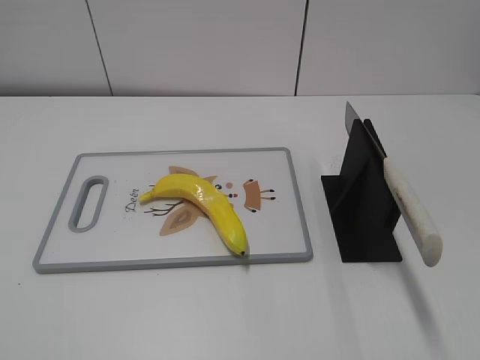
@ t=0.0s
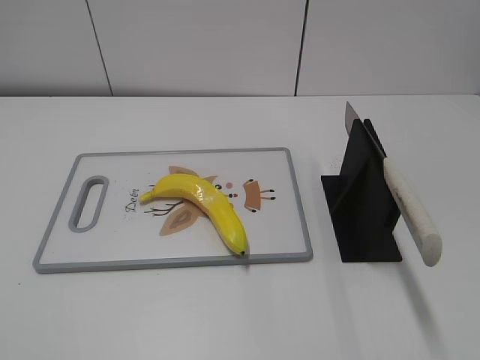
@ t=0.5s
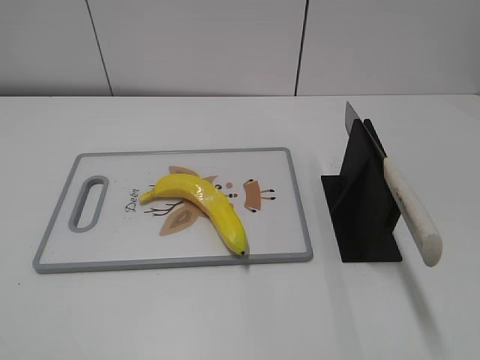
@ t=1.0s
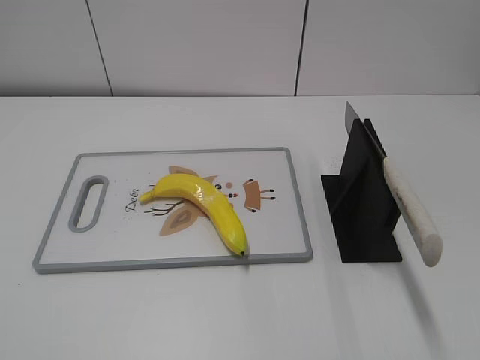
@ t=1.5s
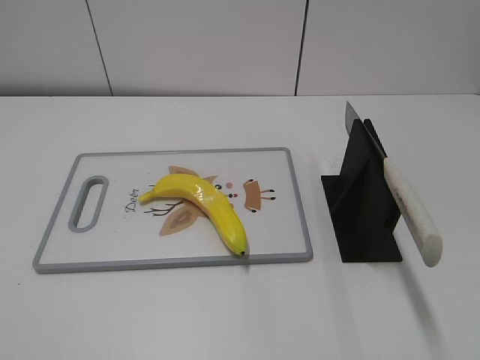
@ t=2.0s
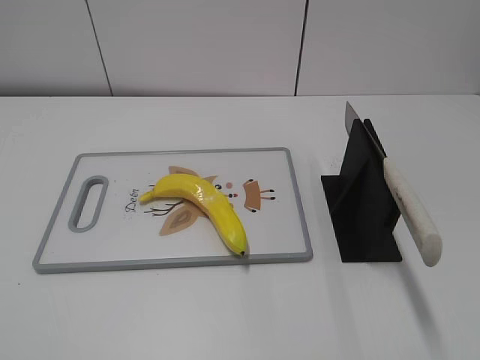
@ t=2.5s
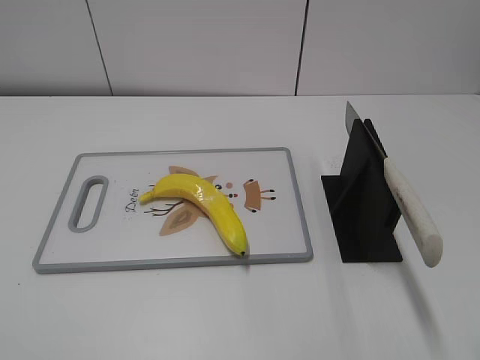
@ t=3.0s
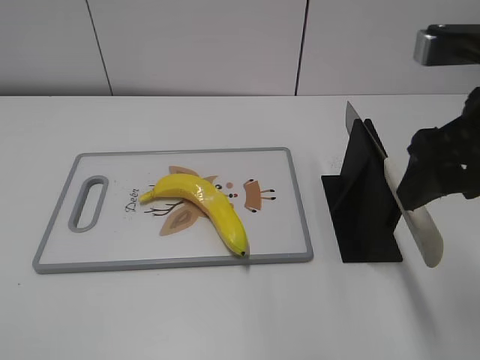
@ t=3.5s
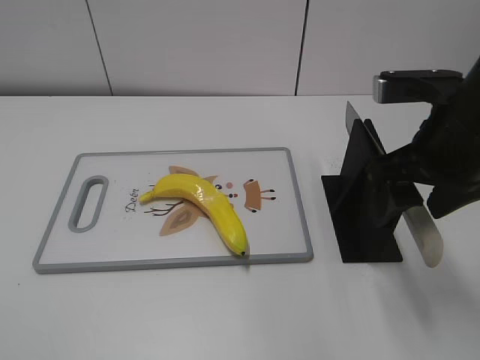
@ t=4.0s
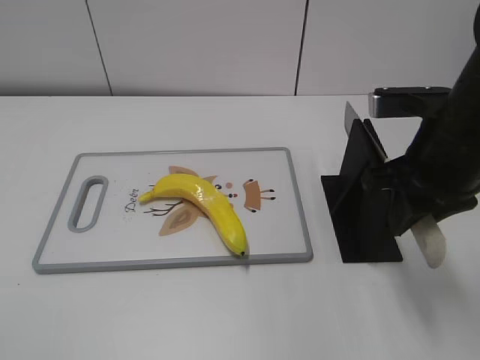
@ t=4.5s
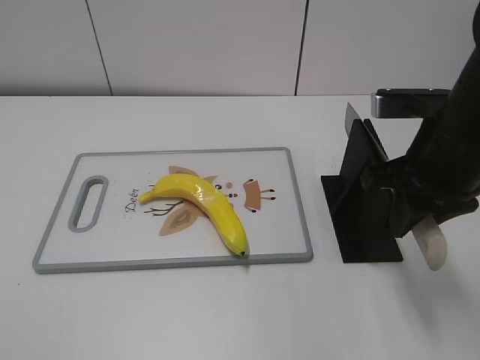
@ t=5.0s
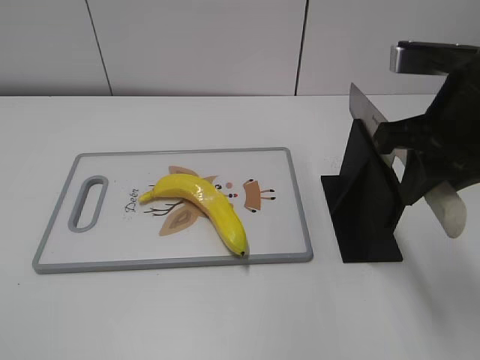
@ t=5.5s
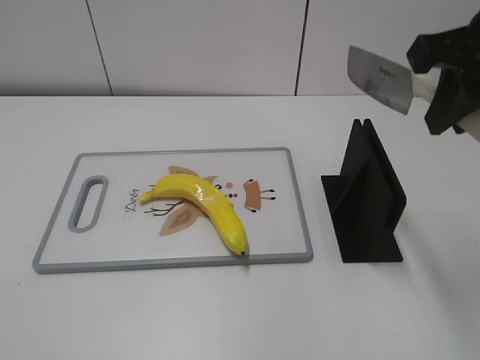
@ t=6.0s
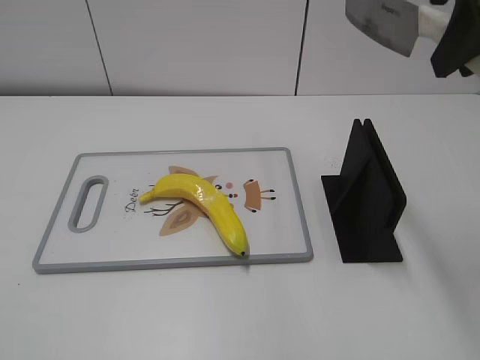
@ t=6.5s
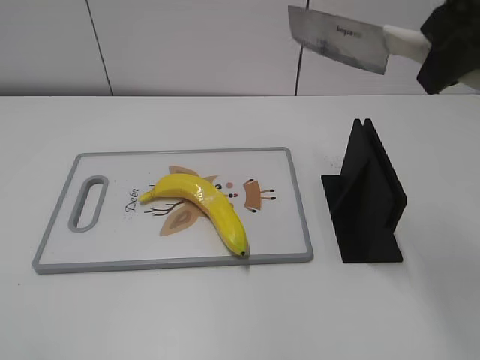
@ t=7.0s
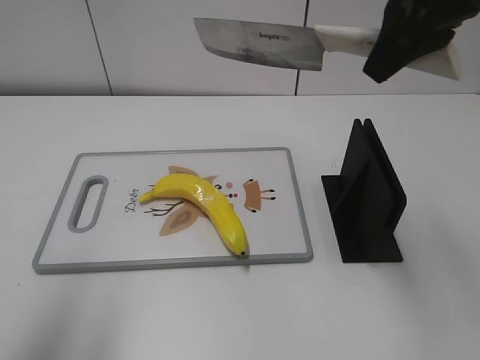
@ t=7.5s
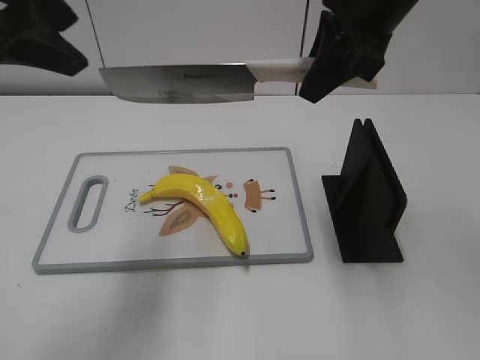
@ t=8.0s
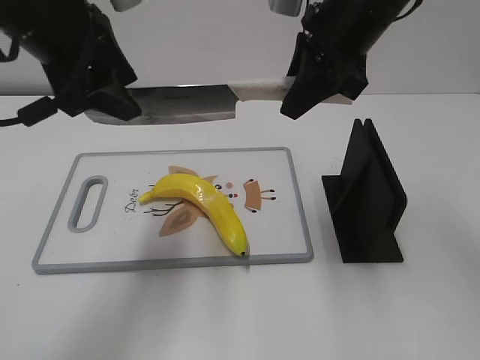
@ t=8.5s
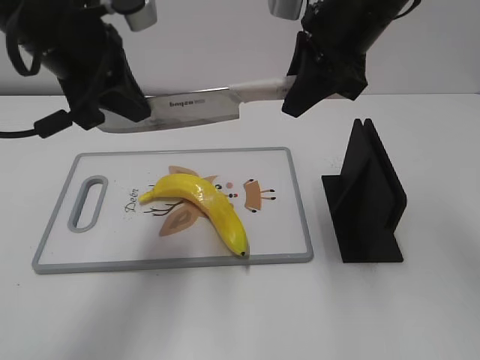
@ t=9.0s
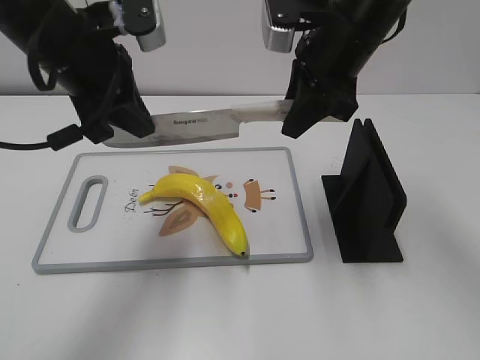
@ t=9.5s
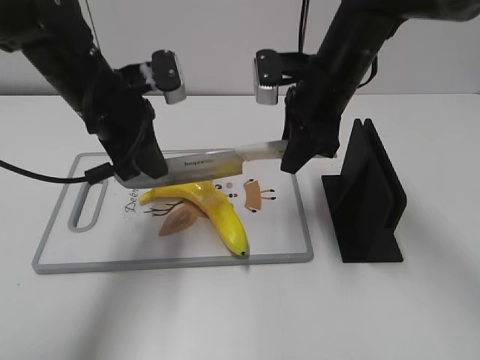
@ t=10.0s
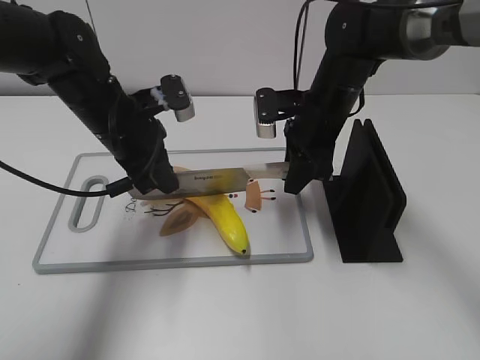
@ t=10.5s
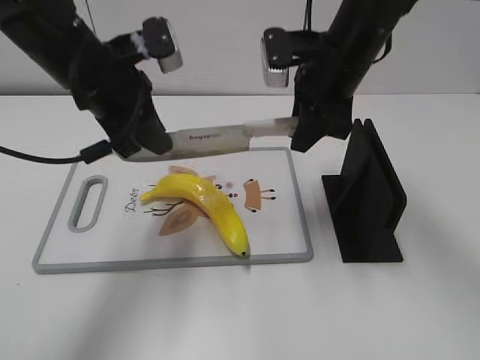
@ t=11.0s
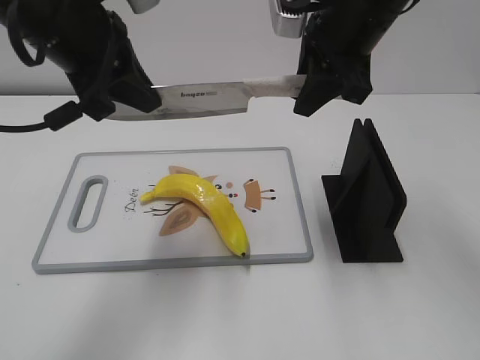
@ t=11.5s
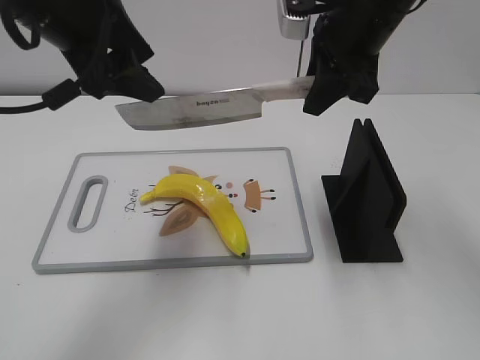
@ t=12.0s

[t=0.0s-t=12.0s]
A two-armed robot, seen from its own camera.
Task of the whole recording: cut plastic banana.
Step, t=0.0s to t=5.5s: Grab the knife handle with your right hand.
Step, t=6.0s to t=11.0s: Lift the knife with your right hand.
t=2.0s to t=4.0s: The right gripper is displaced forward and to the left by roughly 30 cm.
t=4.0s to t=6.0s: The right gripper moves upward, roughly 10 cm, and closes its fingers.
t=6.0s to t=8.0s: The left gripper is displaced forward and to the right by approximately 30 cm. Meanwhile the right gripper shifts some 10 cm forward and to the left.
t=8.0s to t=10.0s: The right gripper is displaced downward by approximately 15 cm, while the left gripper heads downward and forward, covering approximately 20 cm, and closes up.
t=10.0s to t=12.0s: Both grippers move upward, about 10 cm. The left gripper opens up.

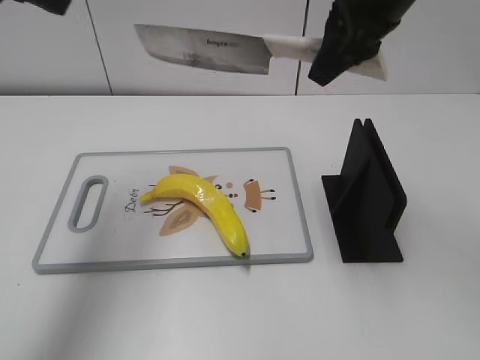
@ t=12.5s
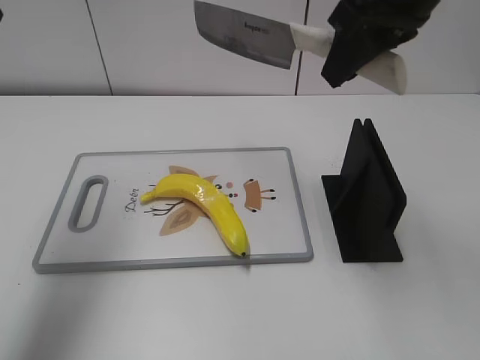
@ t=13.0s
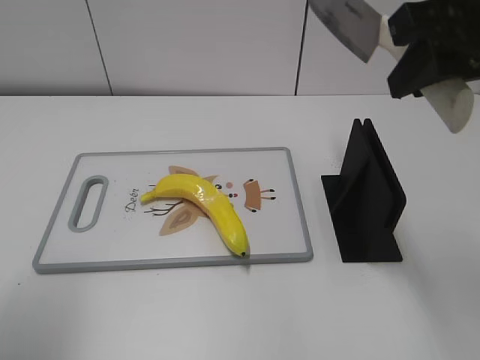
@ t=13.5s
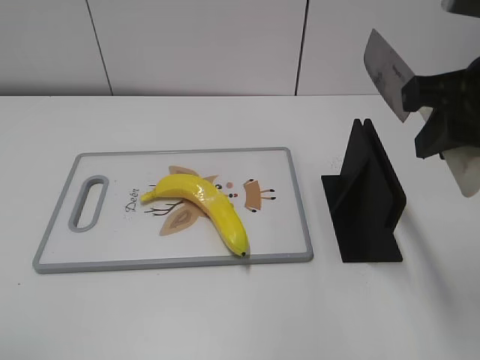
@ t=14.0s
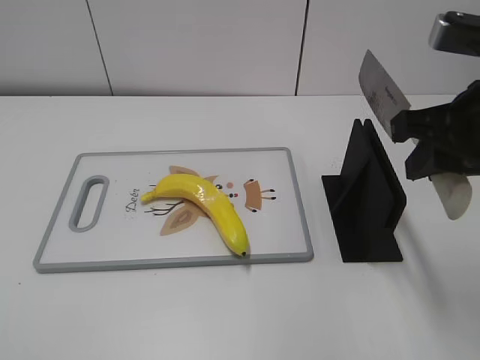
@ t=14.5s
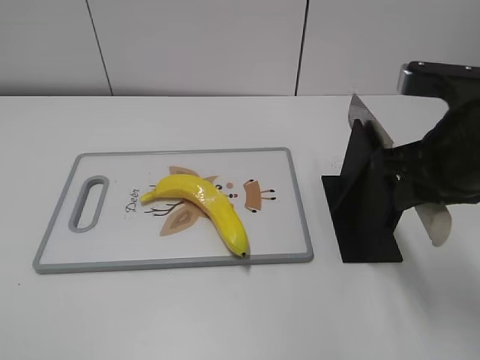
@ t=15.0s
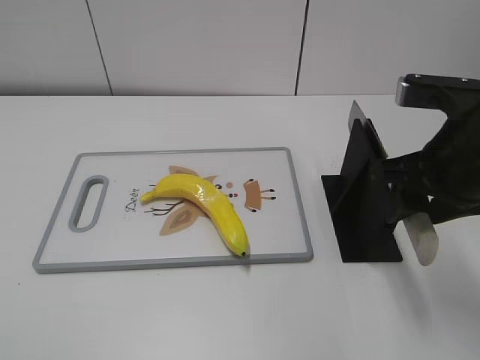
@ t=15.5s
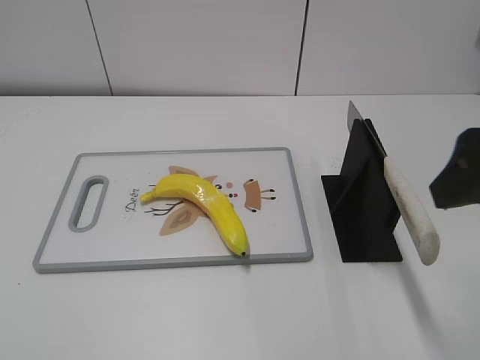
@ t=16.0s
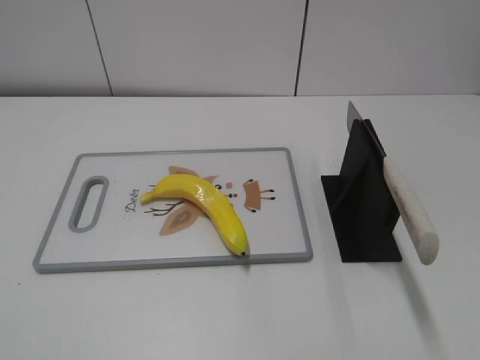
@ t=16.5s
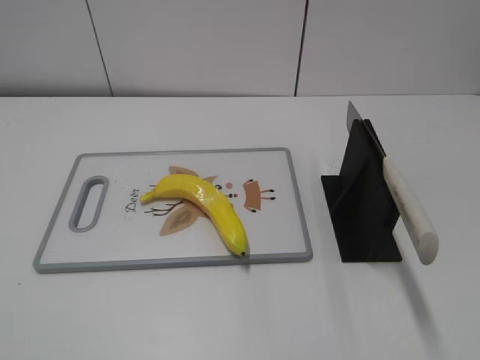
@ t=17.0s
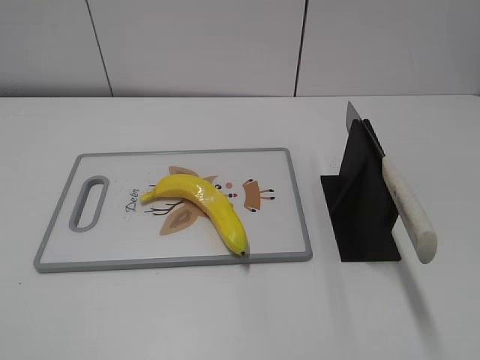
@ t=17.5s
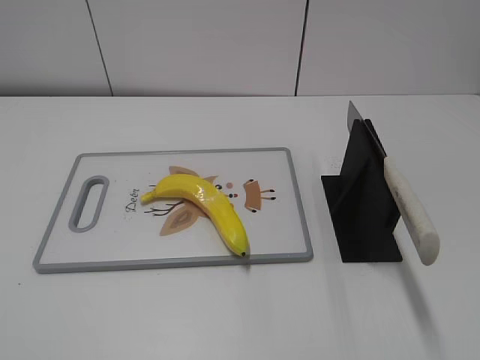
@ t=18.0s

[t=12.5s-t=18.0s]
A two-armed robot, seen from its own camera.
Task of the whole recording: cut plastic banana.
Step, t=13.5s to t=14.0s: Lift the knife with your right hand.
Step, t=14.5s to t=18.0s: Place the knife on the storage rack with your right hand.
t=12.5s to t=14.5s: The right gripper travels backward, to the right and downward by approximately 15 cm. The left gripper heads backward, covering approximately 35 cm.
t=14.5s to t=16.0s: The right gripper moves roughly 5 cm, and opens.
t=16.0s to t=18.0s: The right gripper is displaced backward and to the right by some 20 cm.
